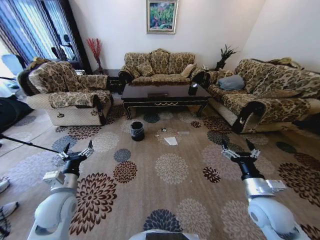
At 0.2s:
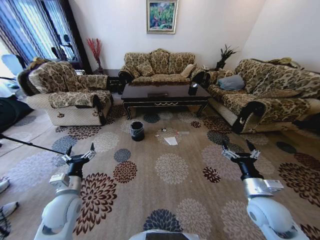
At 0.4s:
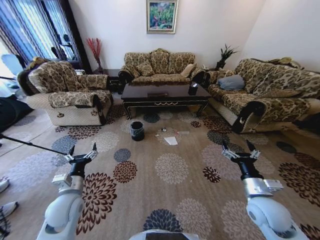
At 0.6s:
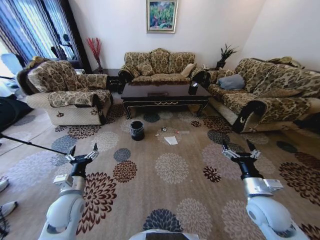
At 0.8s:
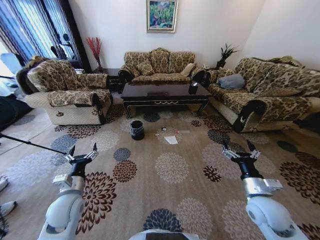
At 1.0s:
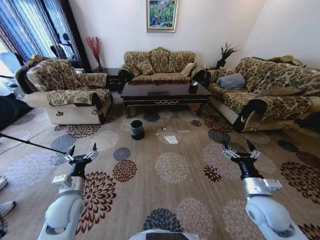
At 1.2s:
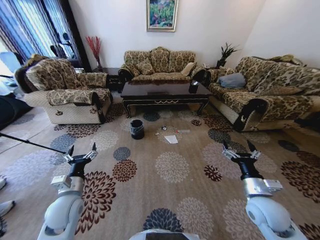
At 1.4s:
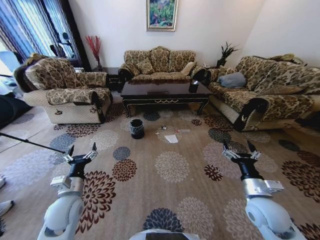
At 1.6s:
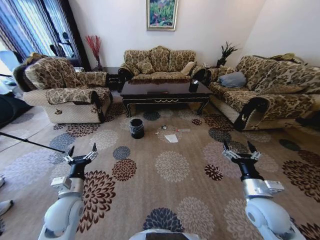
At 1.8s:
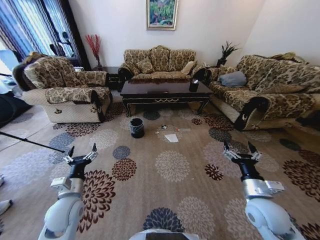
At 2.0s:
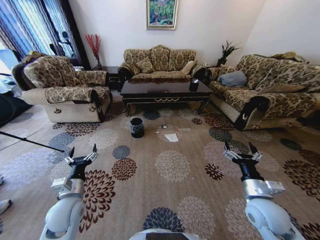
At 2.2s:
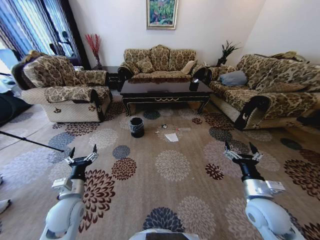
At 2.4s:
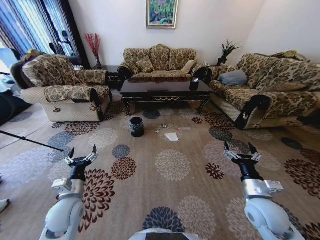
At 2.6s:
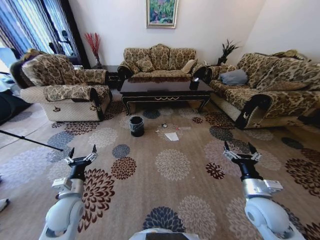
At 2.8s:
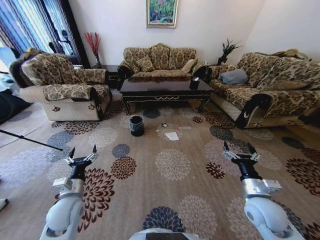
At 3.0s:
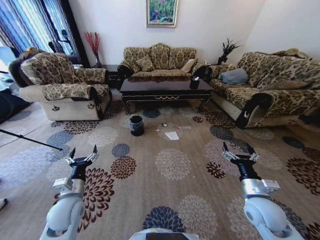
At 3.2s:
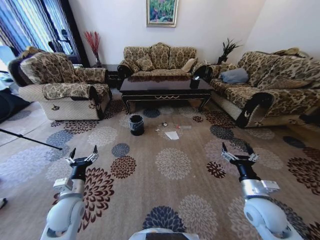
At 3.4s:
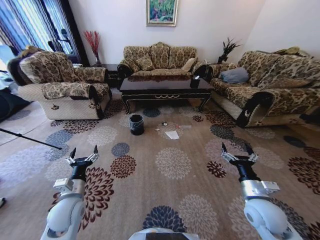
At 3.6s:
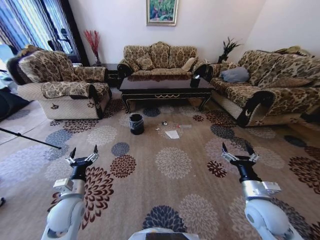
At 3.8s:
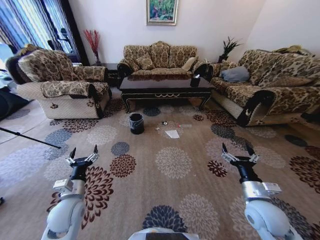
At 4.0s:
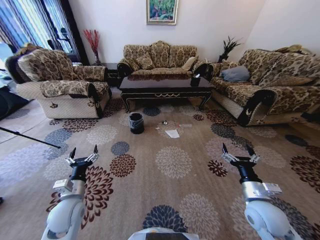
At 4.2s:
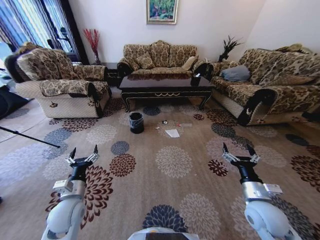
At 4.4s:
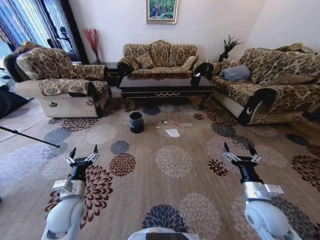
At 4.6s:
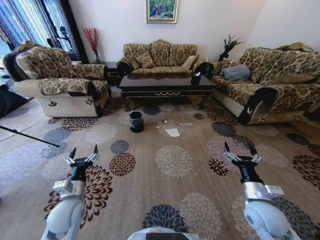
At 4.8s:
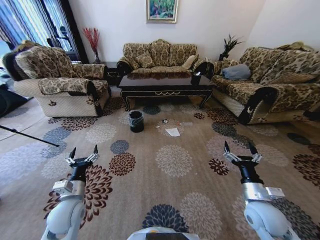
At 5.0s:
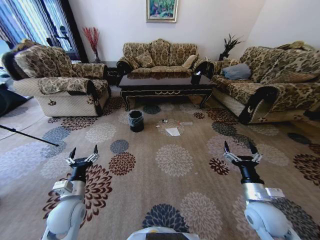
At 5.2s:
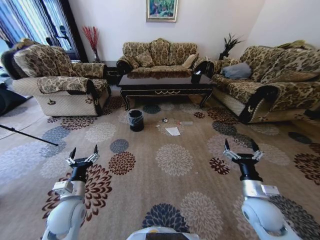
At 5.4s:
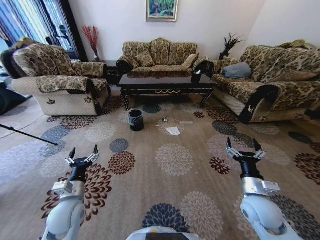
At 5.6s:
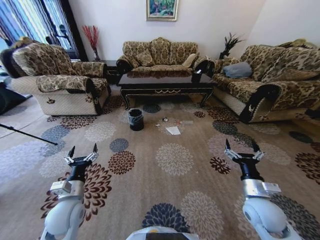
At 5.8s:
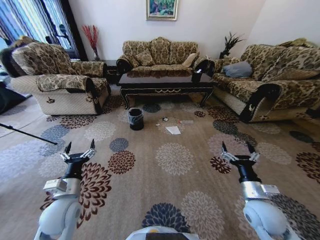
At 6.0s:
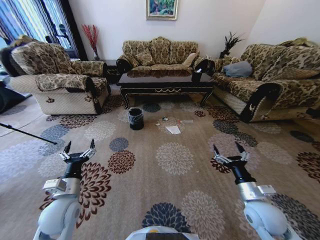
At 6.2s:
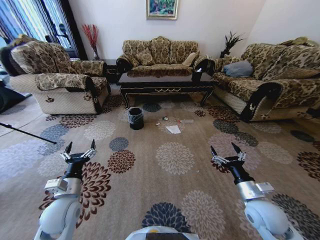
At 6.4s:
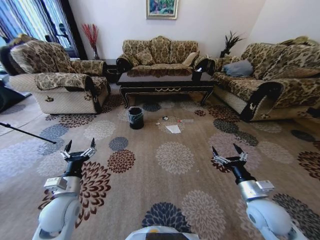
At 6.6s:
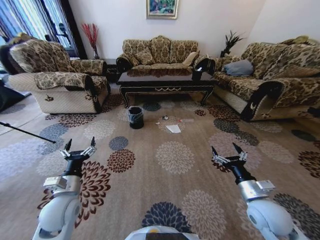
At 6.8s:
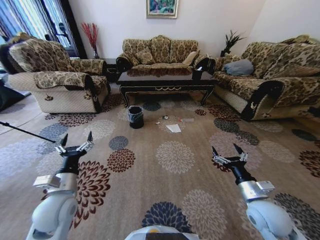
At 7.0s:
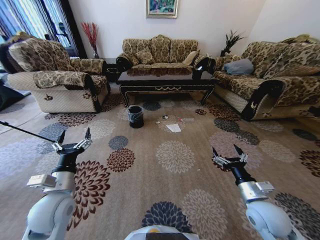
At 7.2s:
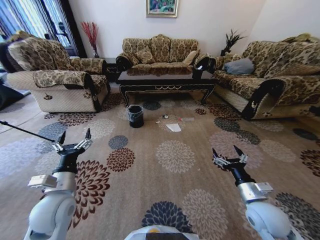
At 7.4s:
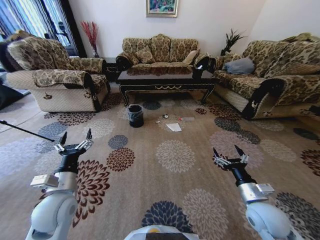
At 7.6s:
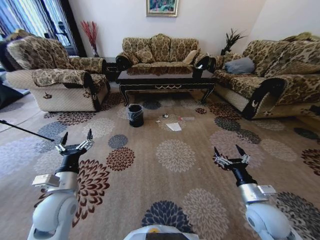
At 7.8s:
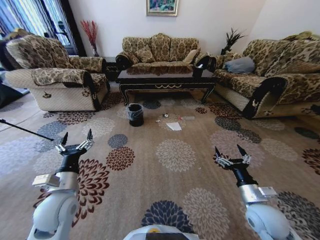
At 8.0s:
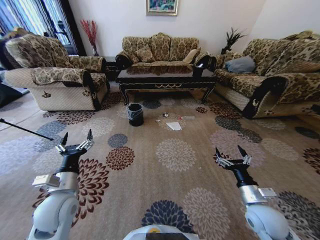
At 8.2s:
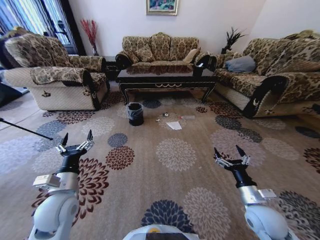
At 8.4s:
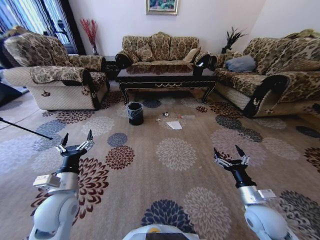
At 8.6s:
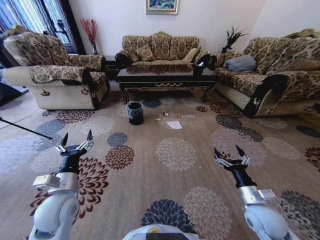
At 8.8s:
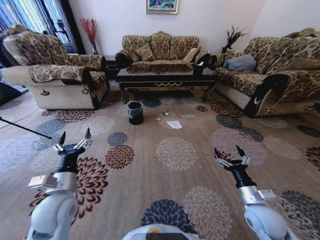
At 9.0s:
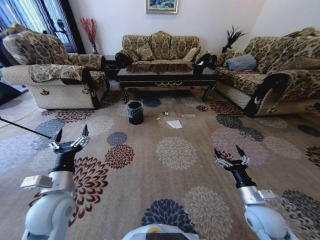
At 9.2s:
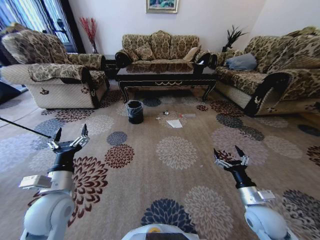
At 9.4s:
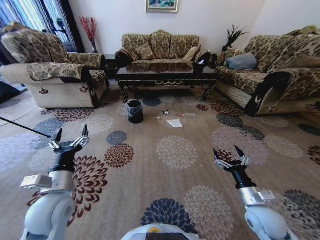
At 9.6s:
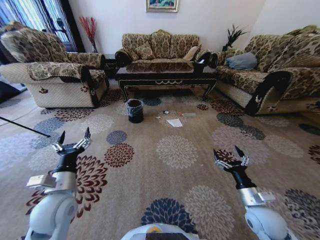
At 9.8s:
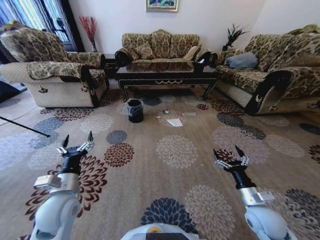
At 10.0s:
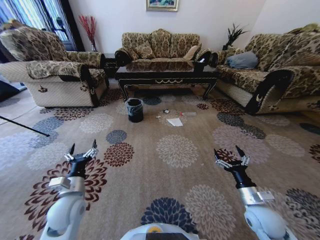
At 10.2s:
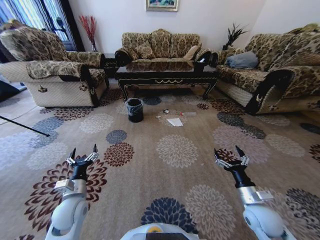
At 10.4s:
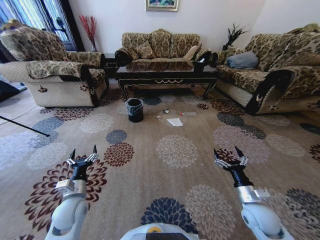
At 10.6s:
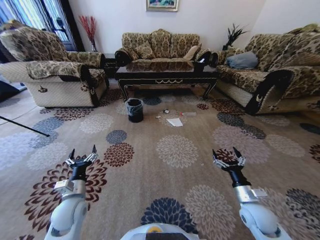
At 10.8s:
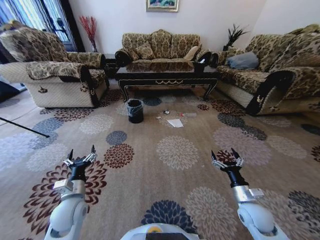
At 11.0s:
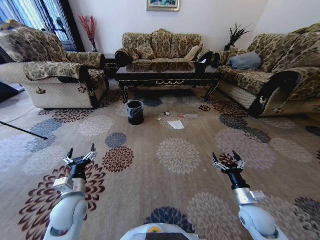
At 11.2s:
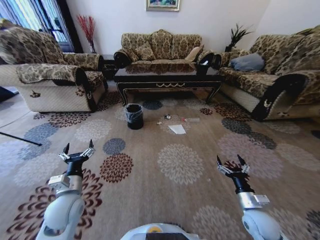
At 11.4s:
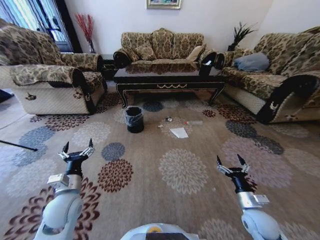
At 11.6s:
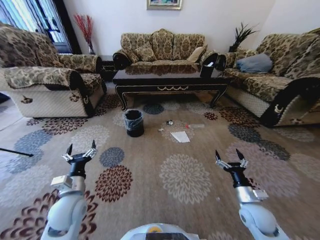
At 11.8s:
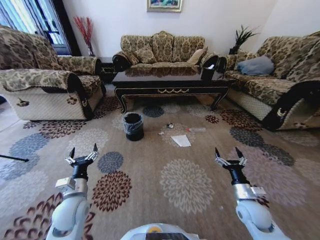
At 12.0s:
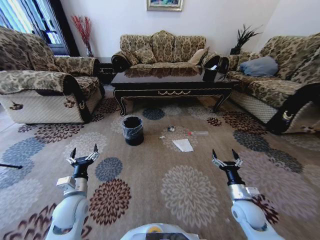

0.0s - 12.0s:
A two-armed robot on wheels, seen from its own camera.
Task of the whole recording: Move to the front of the table and pick up the trash from the floor, then place it into the trash bin.
9.0s - 10.4s: The left gripper goes some 10 cm downward.

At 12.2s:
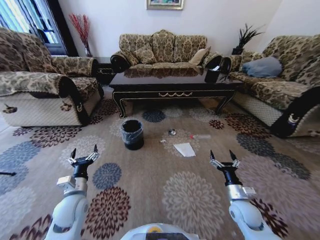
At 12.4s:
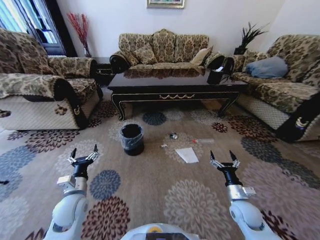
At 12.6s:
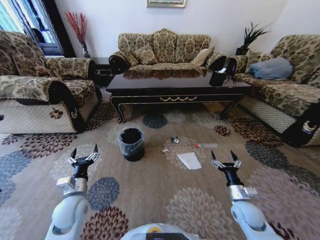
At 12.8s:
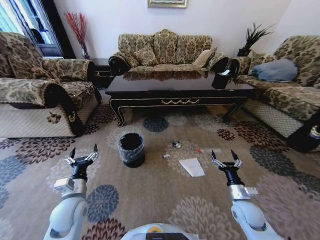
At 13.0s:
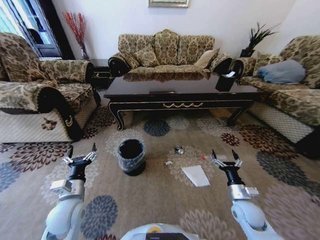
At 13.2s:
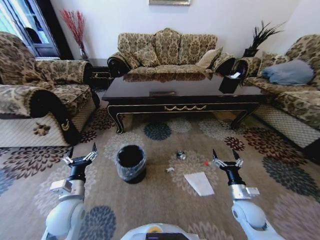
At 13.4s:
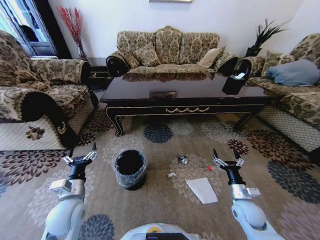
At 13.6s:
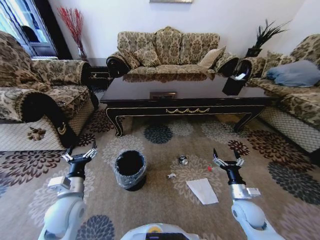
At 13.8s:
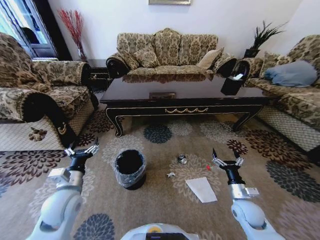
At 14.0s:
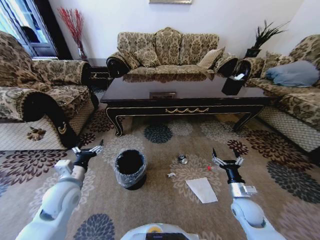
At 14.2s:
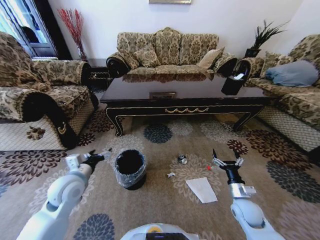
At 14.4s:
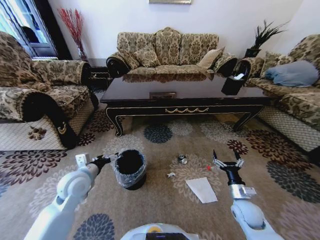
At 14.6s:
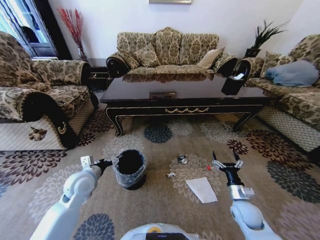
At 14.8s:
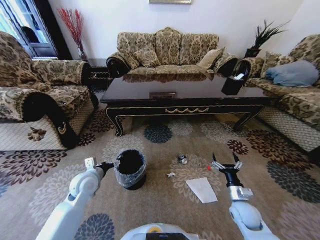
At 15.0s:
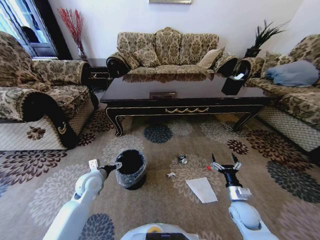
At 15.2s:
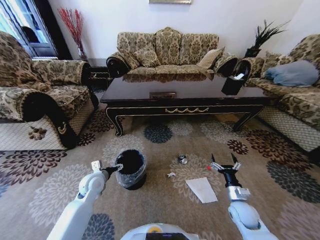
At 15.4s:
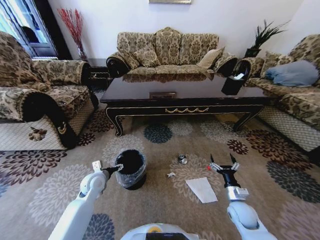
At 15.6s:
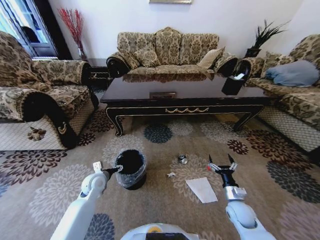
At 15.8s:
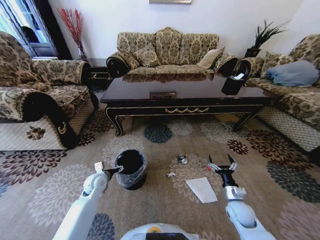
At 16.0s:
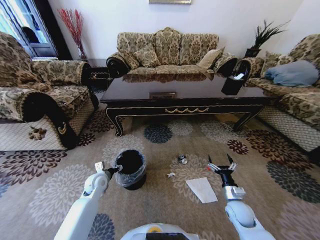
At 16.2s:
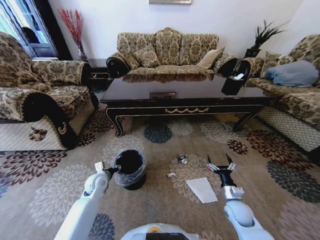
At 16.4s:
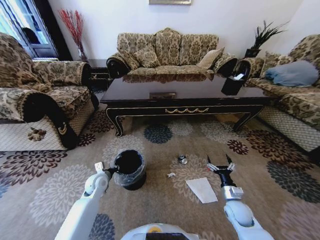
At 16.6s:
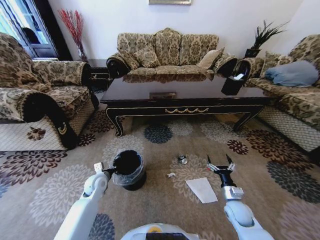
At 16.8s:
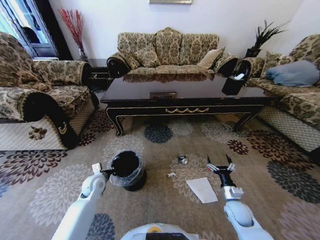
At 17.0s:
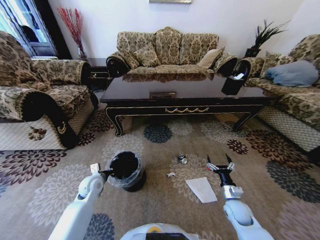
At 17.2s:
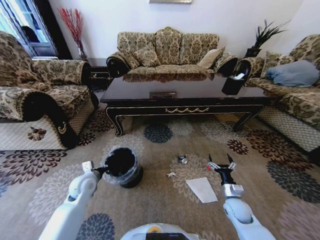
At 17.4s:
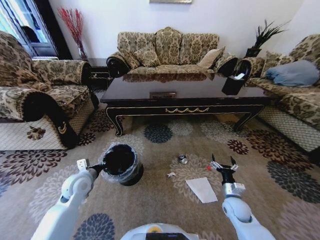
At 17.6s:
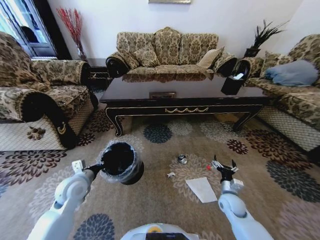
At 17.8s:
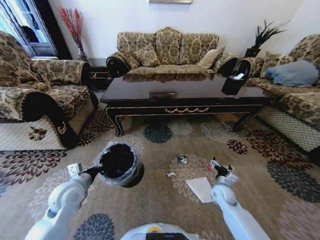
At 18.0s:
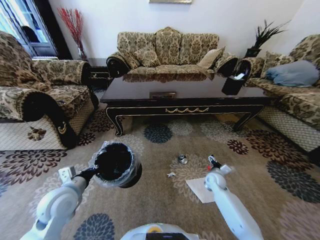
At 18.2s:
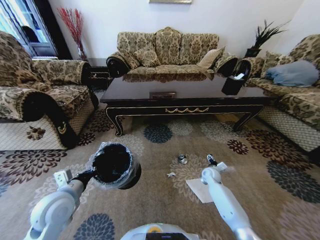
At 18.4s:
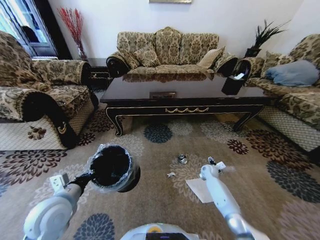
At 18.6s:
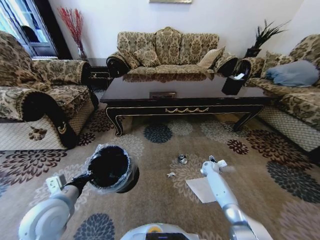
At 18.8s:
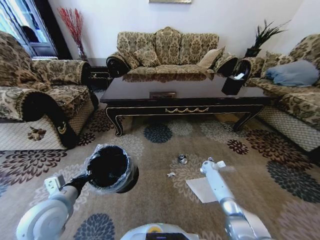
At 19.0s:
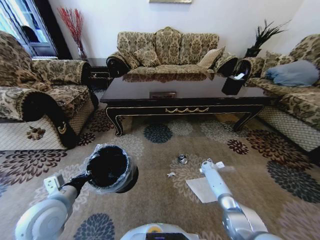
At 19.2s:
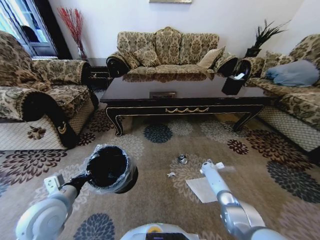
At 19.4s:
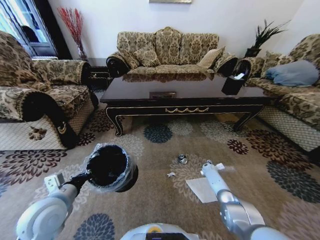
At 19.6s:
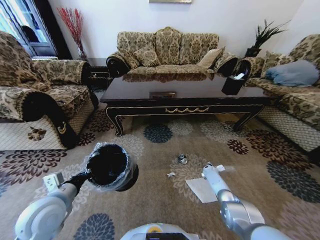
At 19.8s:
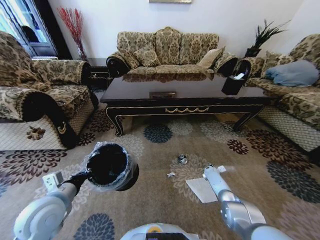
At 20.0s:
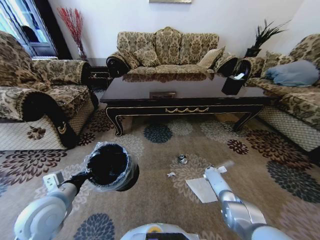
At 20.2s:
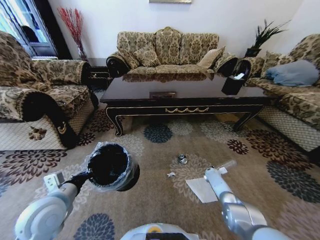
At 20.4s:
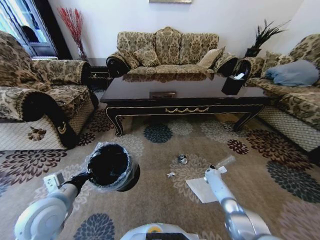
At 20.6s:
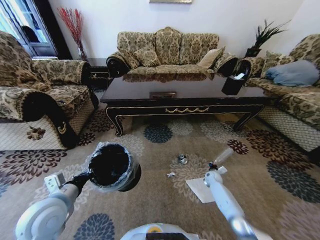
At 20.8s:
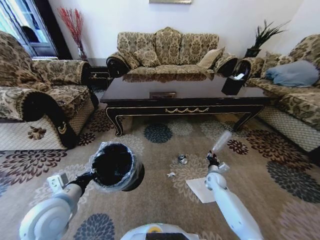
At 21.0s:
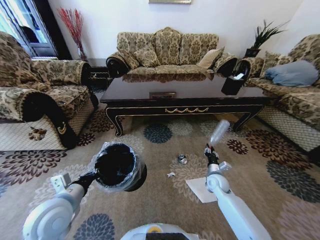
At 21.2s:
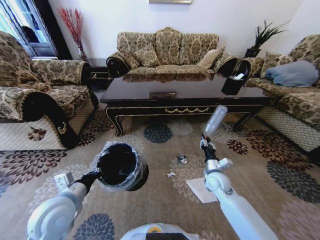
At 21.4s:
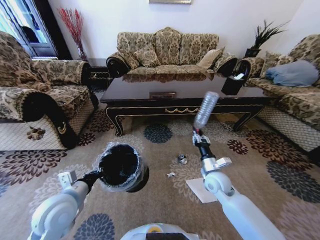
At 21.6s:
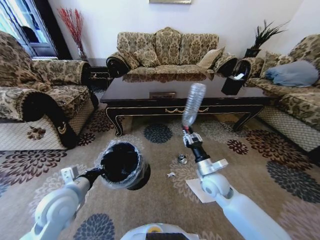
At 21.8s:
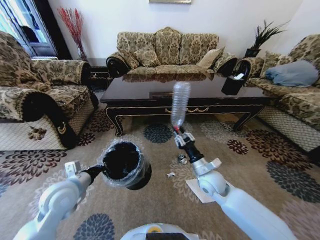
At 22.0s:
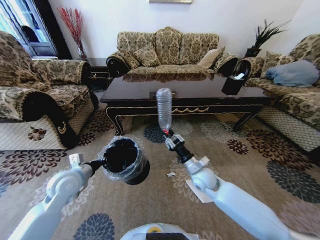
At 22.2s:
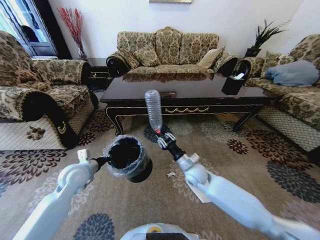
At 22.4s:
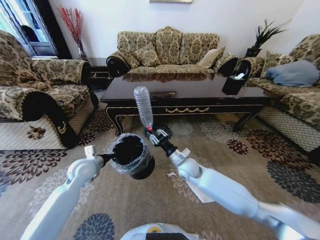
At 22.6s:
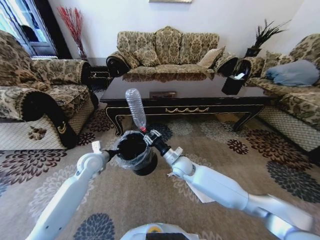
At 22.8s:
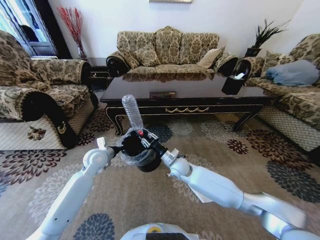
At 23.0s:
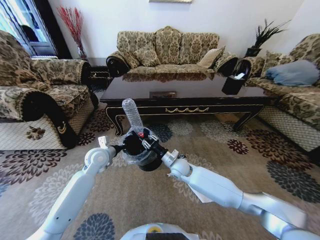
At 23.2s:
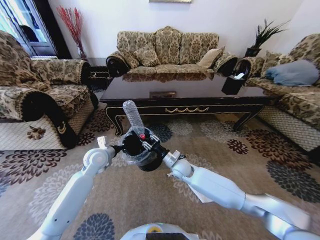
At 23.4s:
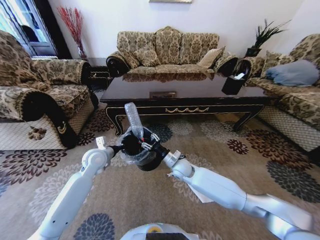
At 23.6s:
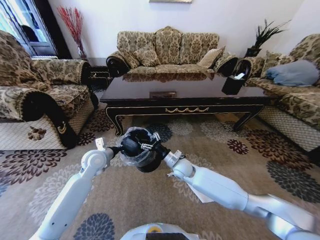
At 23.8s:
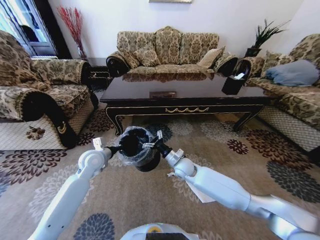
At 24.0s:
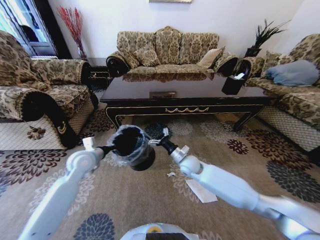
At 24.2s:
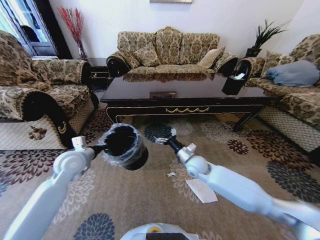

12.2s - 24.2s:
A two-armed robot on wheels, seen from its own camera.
Task of the whole recording: Move to the front of the table and pick up the trash from the floor, then place it into the trash bin.
12.2s - 13.8s: The left gripper heads upward, covering approximately 5 cm.
13.8s - 15.2s: The left gripper heads forward and downward, covering roughly 15 cm.
15.2s - 16.6s: The left gripper changes place by some 5 cm, and closes its fingers.
16.6s - 18.2s: The left gripper goes about 20 cm upward and backward, while the right gripper heads forward, covering approximately 20 cm.
18.2s - 19.8s: The right gripper moves downward, to the right and forward, some 15 cm.
19.8s - 21.2s: The right gripper travels upward, backward and to the left by roughly 30 cm, and closes.
21.2s - 22.6s: The right gripper goes roughly 15 cm to the left and forward. The left gripper shifts some 20 cm forward.
22.6s - 24.2s: The left gripper shifts some 5 cm upward. The right gripper moves to the right, some 10 cm, and opens its fingers.
